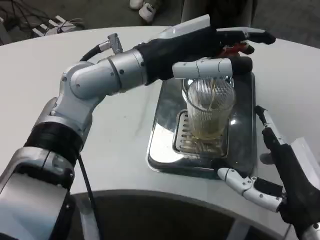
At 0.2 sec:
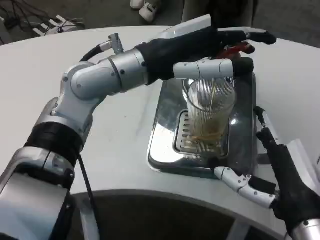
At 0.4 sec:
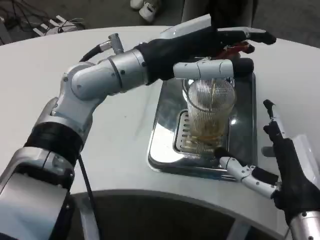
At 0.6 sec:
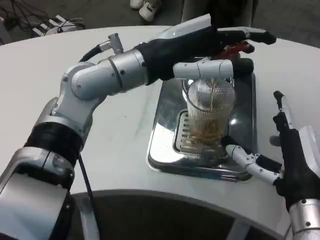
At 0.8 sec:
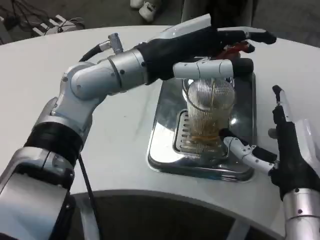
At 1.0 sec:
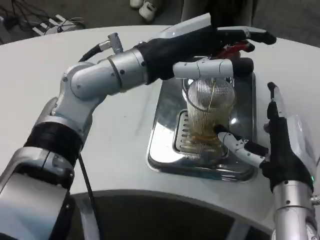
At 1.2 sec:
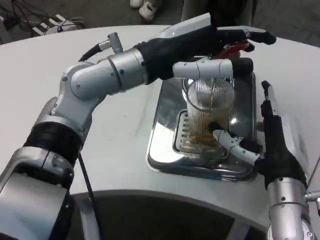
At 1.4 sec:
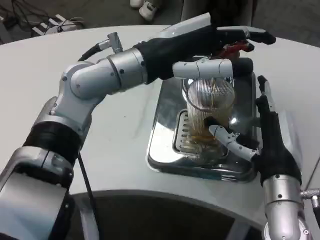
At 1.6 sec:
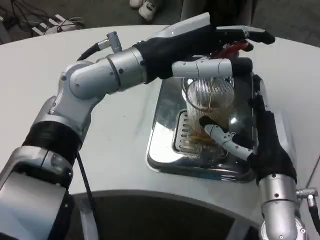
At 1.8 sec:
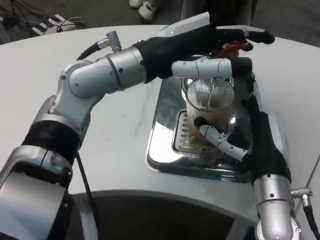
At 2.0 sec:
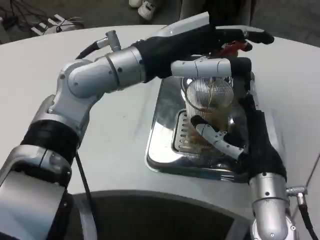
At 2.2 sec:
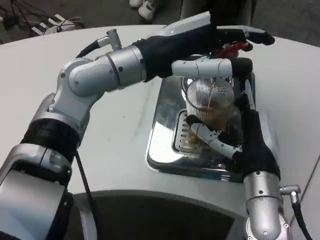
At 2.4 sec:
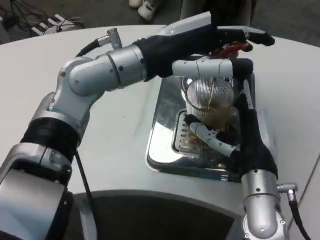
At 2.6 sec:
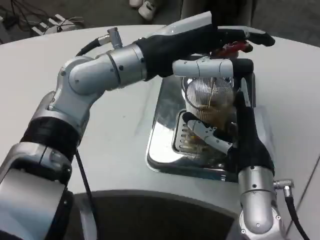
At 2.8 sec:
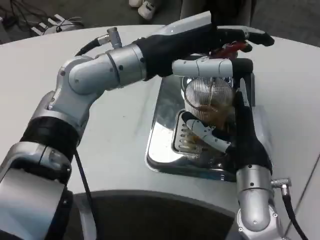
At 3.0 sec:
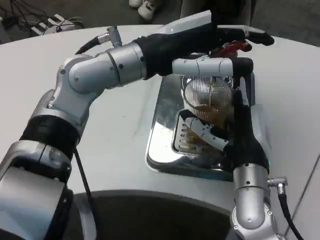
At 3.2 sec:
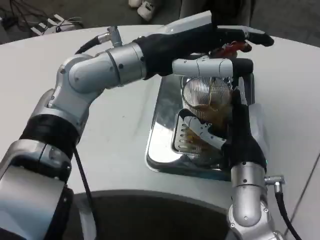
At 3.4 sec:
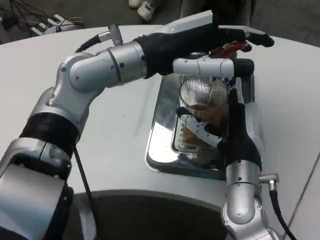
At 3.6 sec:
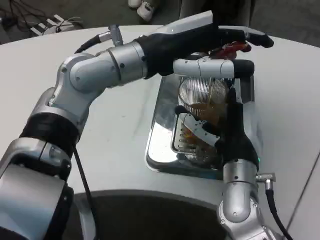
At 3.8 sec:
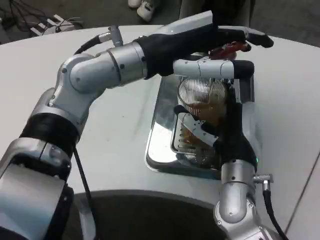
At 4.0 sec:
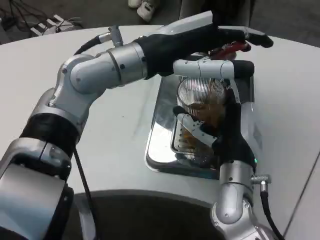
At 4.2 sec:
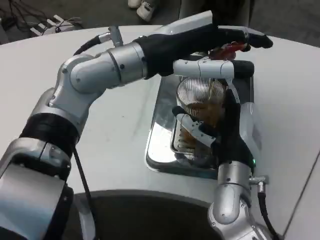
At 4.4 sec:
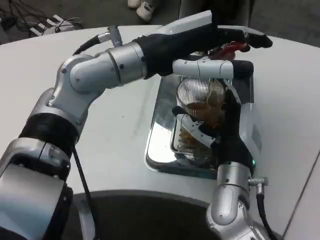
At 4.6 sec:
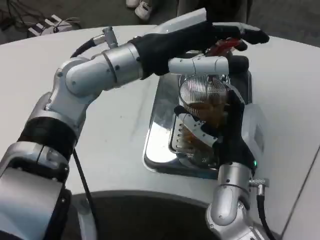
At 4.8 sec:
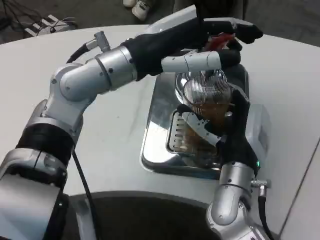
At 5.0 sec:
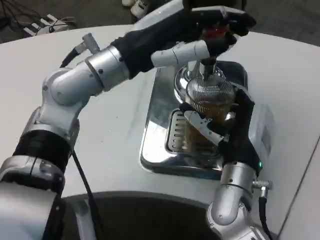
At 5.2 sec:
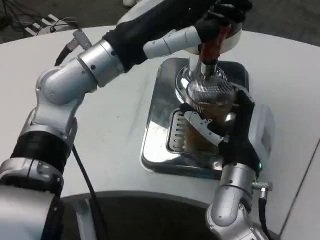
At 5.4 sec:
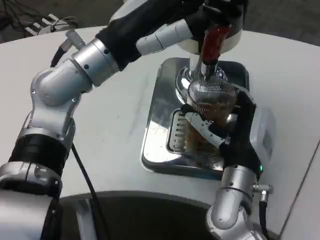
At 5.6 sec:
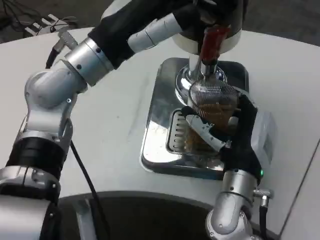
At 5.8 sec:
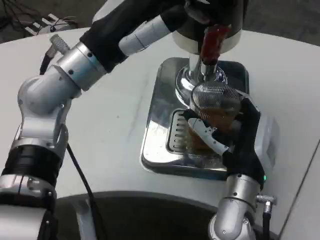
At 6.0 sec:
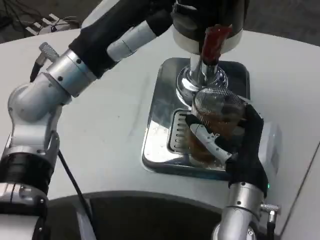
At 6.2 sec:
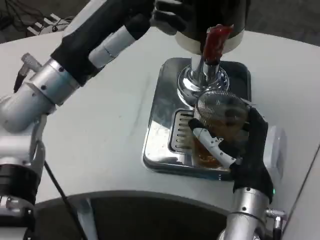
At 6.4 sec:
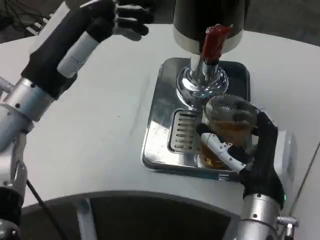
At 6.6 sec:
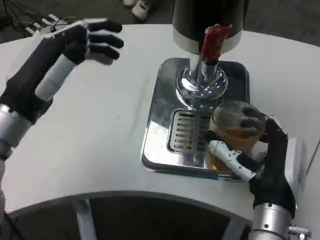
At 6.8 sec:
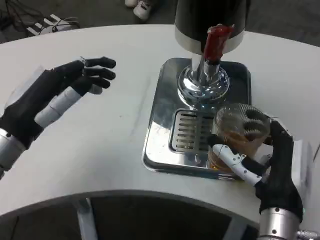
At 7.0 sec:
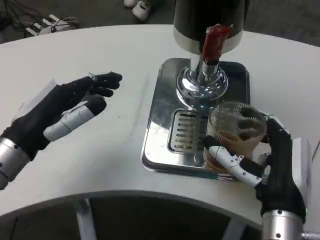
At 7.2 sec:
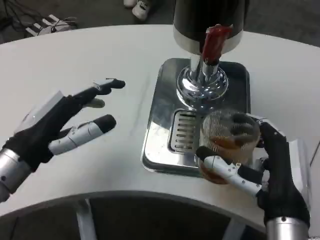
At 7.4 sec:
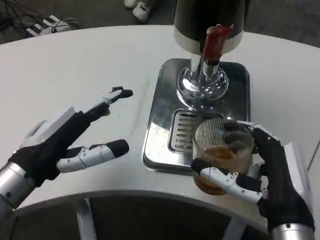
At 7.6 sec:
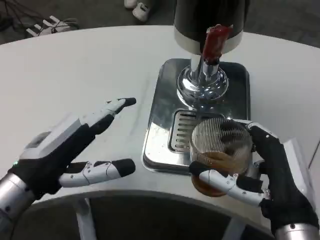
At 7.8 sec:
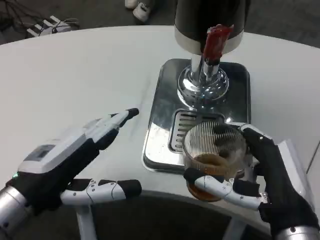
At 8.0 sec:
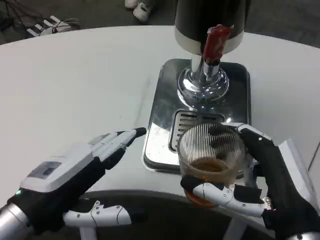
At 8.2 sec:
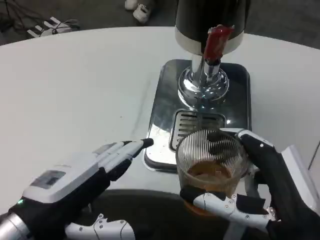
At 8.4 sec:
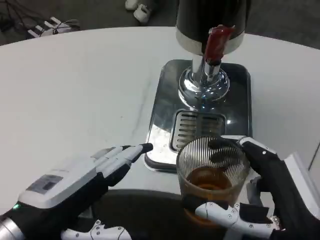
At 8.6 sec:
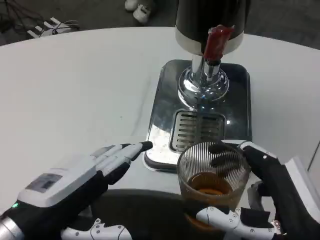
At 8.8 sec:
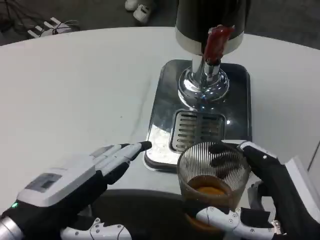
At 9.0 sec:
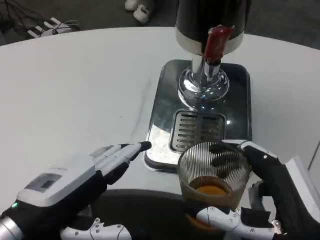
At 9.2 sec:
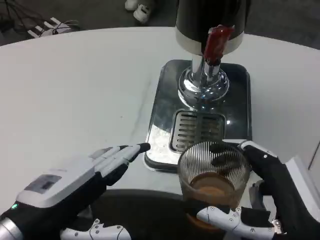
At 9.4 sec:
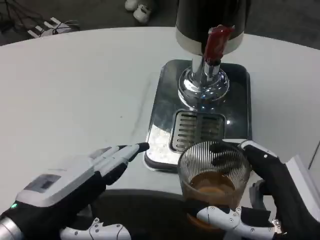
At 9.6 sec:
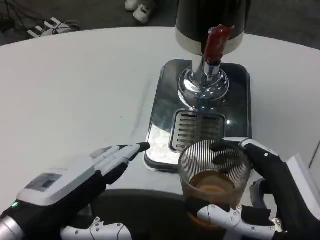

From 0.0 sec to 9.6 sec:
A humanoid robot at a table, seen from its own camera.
Task of the whole recording: Grasp the cup under the faucet to collect the drink, then remove the cup.
From 0.0 sec to 1.6 sec: The right hand shifts some 10 cm forward.
From 4.8 sec to 6.4 sec: The left hand is displaced to the left and downward by about 10 cm. The right hand shifts by about 5 cm.
From 6.4 sec to 8.0 sec: The right hand shifts about 10 cm backward, while the left hand goes approximately 15 cm backward and downward.
